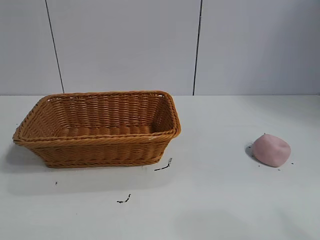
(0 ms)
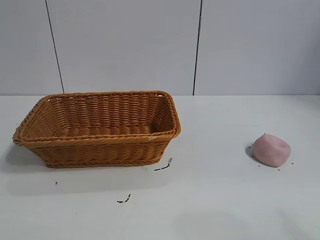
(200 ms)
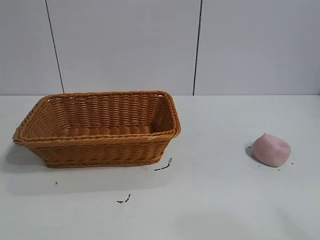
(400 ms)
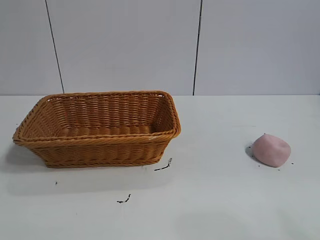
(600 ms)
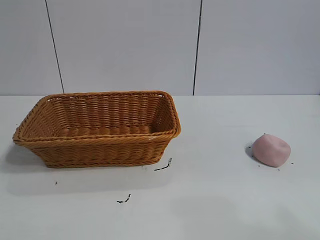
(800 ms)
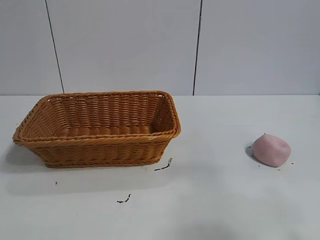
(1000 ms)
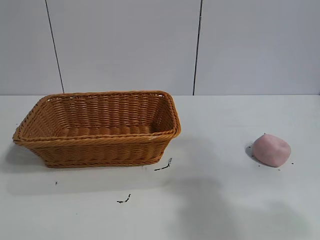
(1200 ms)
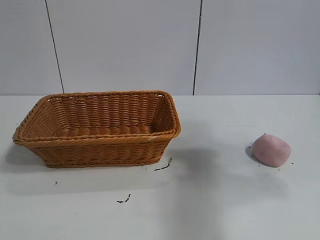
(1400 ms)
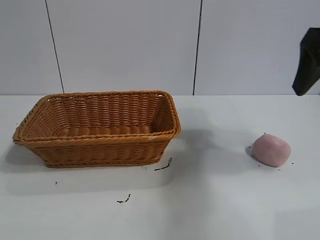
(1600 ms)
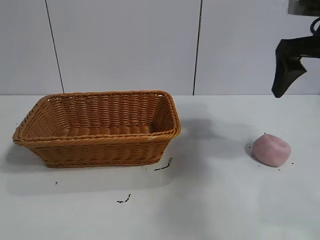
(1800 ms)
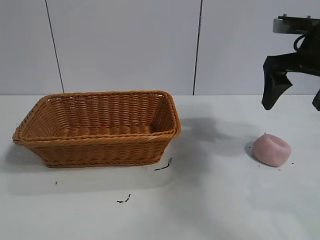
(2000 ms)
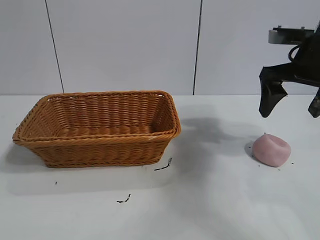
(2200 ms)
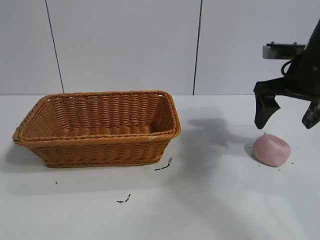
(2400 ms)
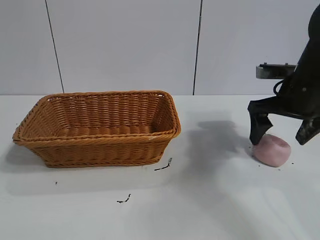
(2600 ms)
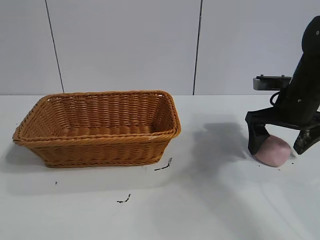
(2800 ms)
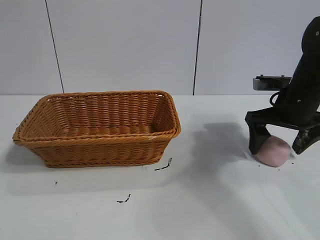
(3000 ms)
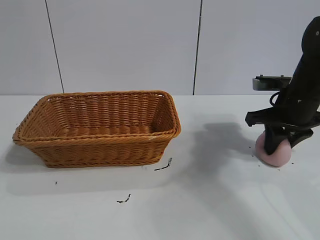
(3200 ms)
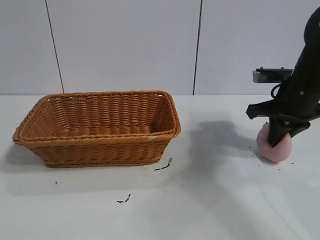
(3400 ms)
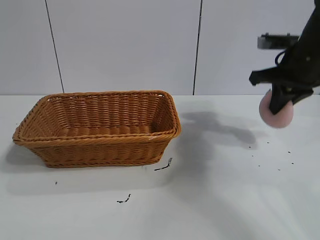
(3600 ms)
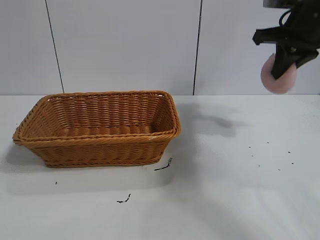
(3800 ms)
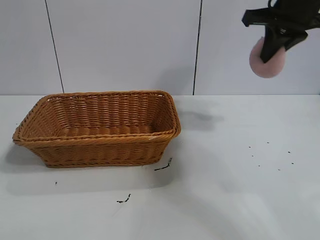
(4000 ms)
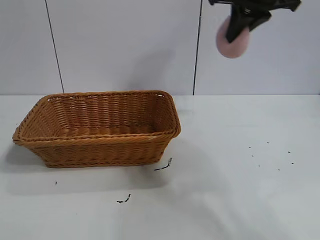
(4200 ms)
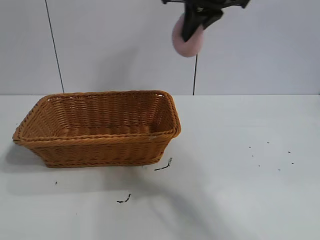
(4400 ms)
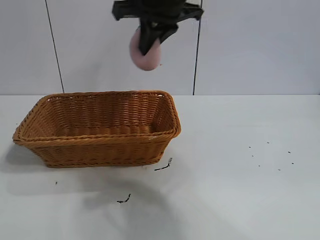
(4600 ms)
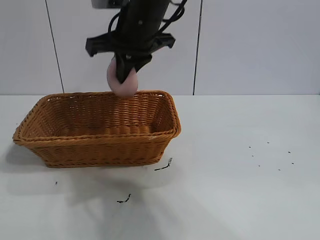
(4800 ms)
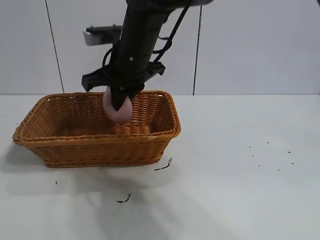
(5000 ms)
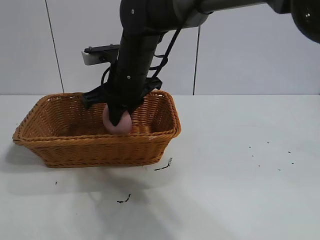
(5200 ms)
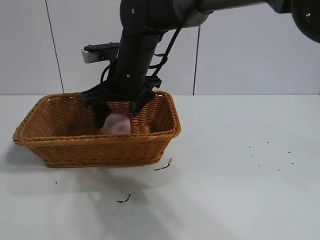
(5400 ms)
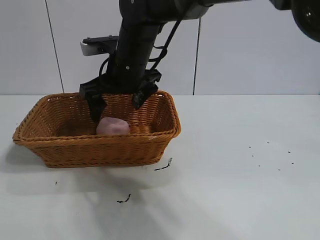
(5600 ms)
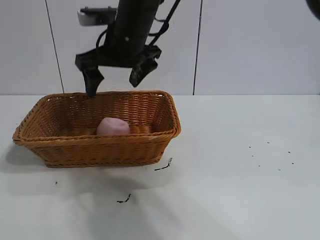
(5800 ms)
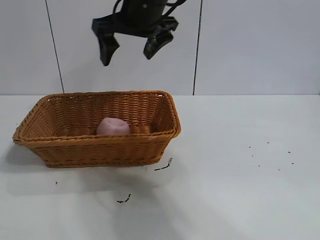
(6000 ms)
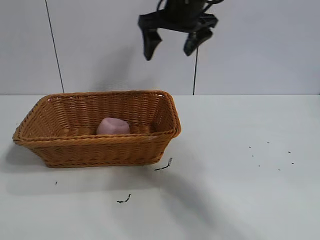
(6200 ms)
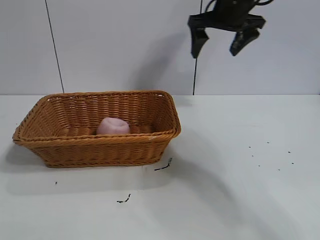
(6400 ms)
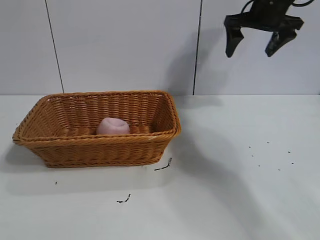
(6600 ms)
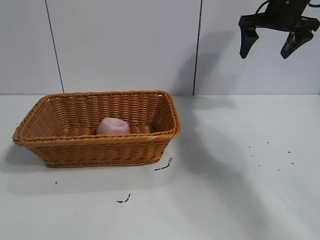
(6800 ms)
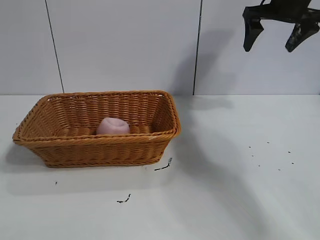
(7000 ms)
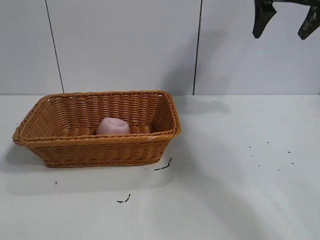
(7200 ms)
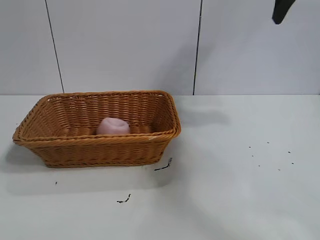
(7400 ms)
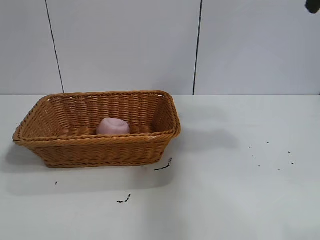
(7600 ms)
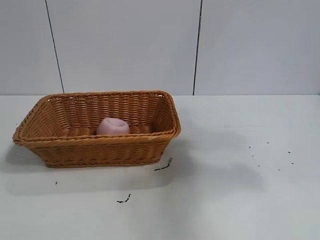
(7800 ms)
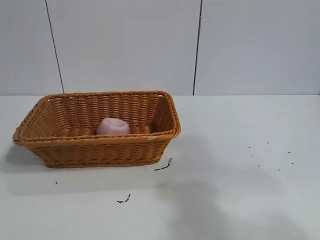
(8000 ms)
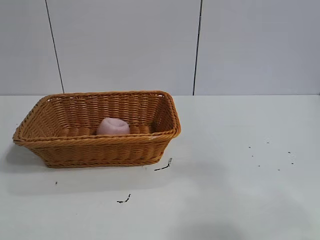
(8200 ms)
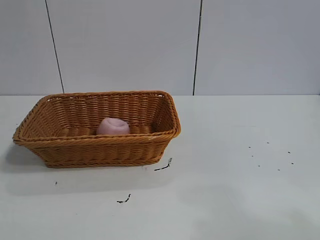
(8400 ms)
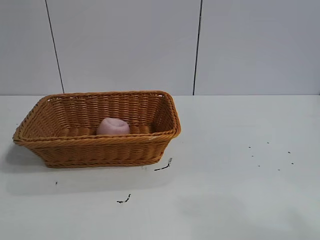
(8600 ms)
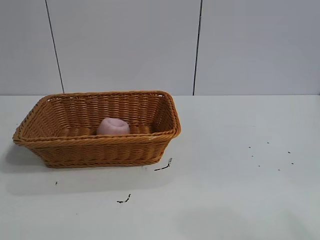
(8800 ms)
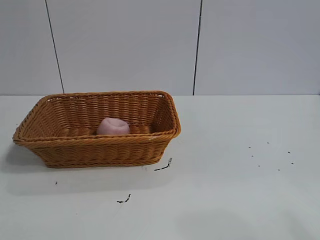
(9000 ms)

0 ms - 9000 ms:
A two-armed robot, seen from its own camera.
Task of the whole recording: pick up the peach and put it into the basket.
Step, 800 ms - 3200 ms: Grasp the peach with right gripper.
Step, 3400 ms - 5400 ms: Place the peach in the basket with right gripper.
